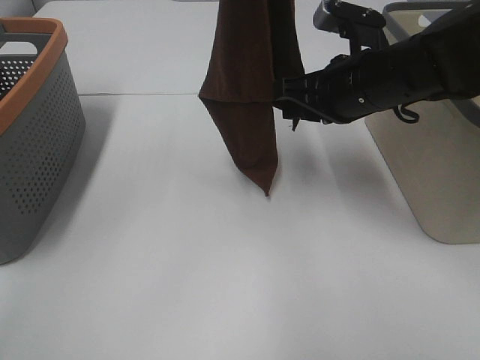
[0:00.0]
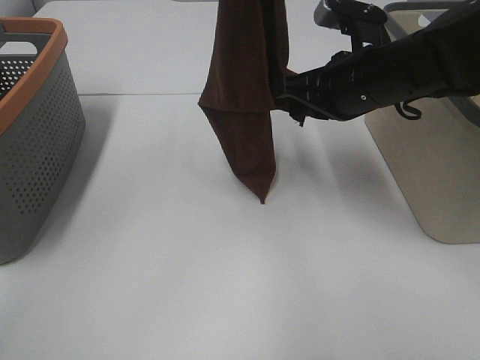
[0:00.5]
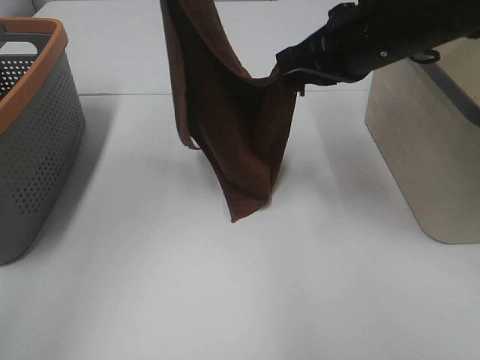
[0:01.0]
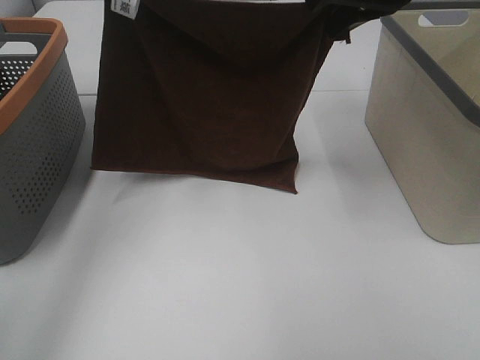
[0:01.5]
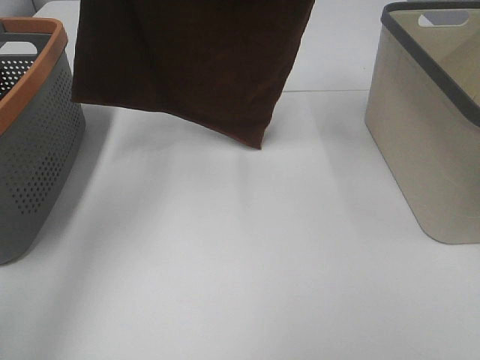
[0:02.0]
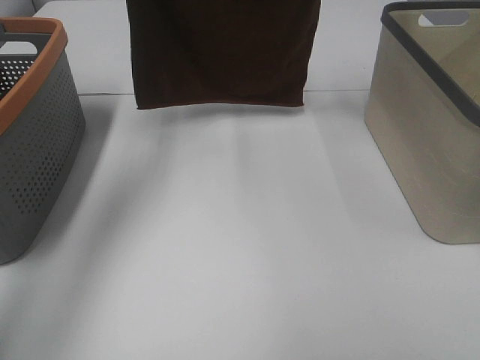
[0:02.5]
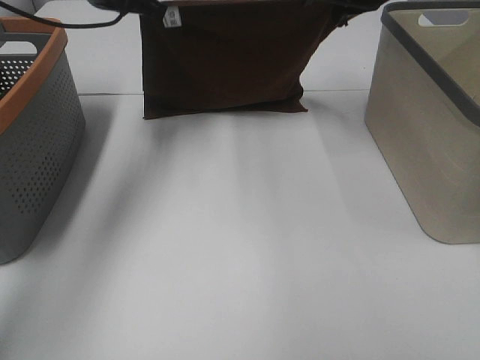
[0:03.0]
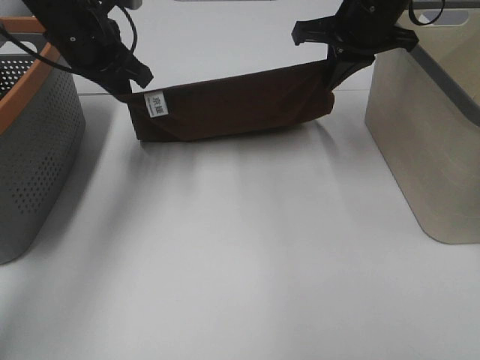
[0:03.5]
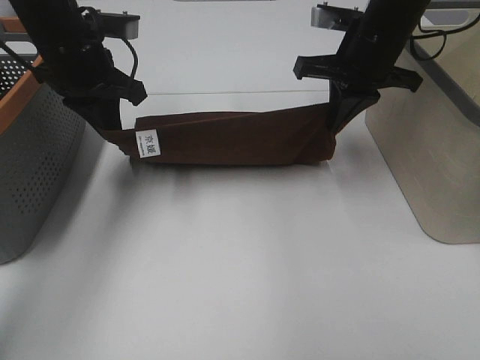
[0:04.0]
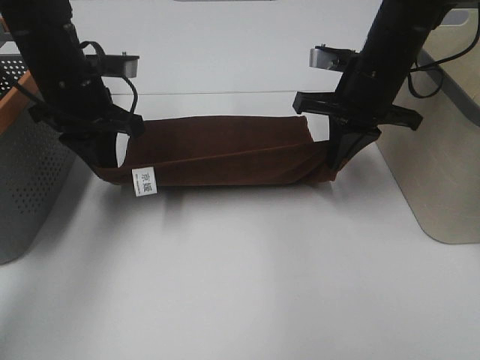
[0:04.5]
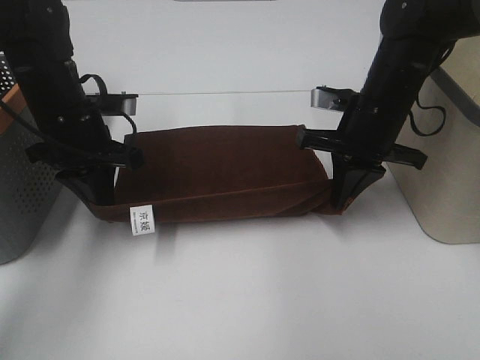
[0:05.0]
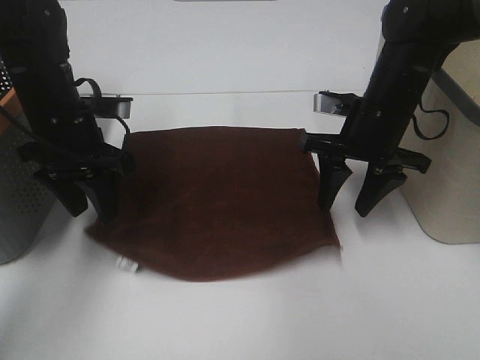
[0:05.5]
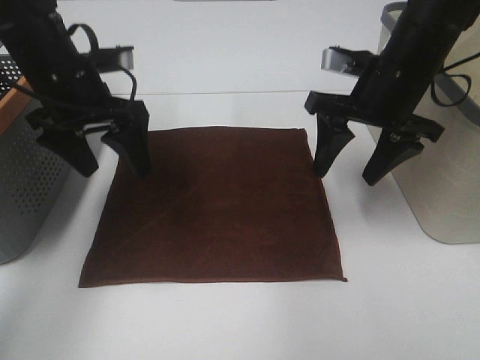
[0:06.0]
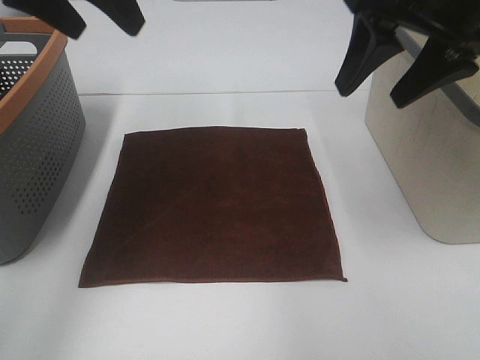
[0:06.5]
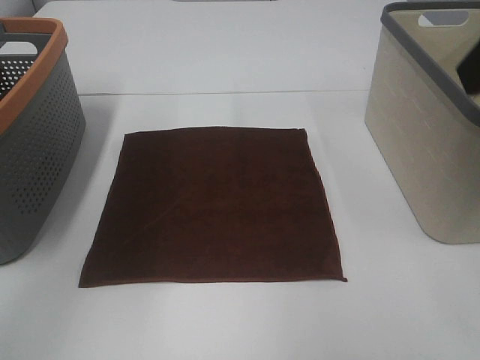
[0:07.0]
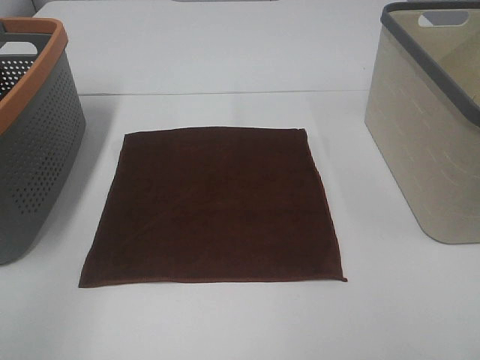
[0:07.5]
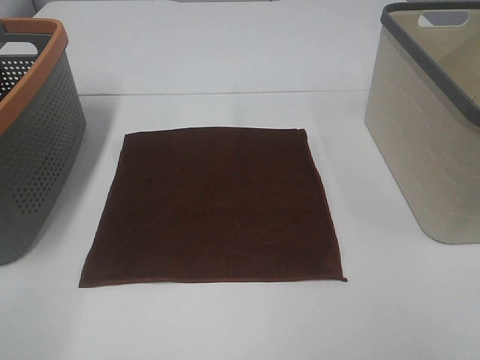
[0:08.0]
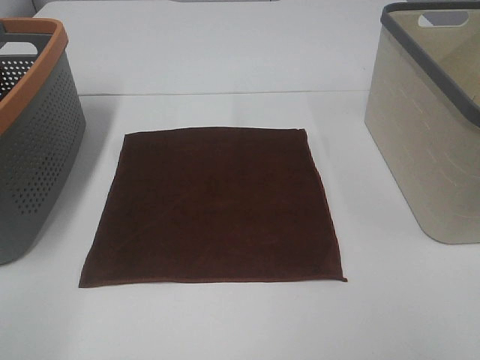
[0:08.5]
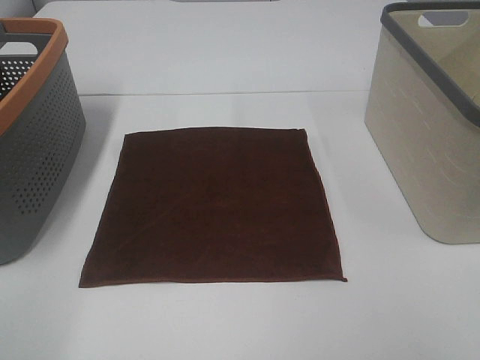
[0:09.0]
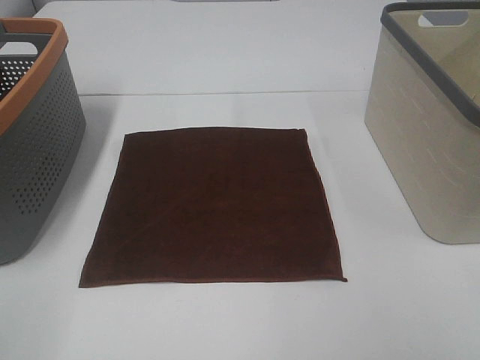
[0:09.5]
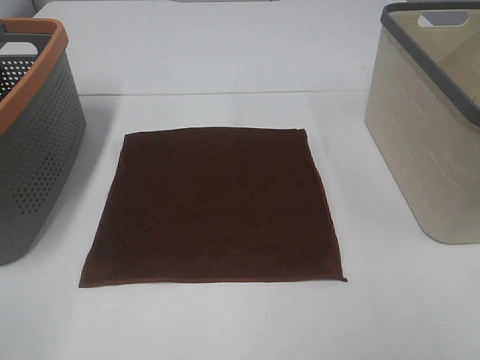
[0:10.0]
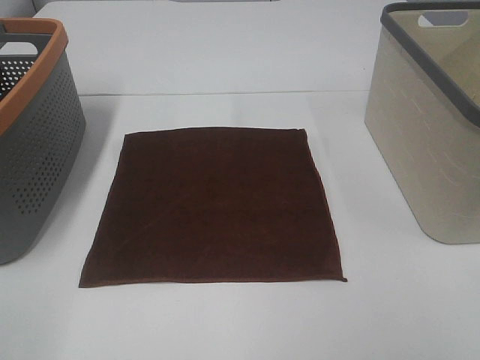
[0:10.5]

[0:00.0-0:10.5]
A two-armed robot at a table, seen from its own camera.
Task of the whole recording: Remove the towel and place it.
0:00.0 to 0:02.0: The left gripper moves to the left and forward, some 15 cm, while the right gripper shifts about 15 cm upward and forward, and closes up.
0:02.0 to 0:04.0: The left gripper is displaced downward by roughly 20 cm; the right gripper is displaced downward by roughly 10 cm.
0:04.0 to 0:06.5: The left gripper moves upward and backward, approximately 15 cm, and opens, while the right gripper goes some 15 cm backward and upward, and opens its fingers.
0:06.5 to 0:08.5: The two grippers go some 30 cm backward.
